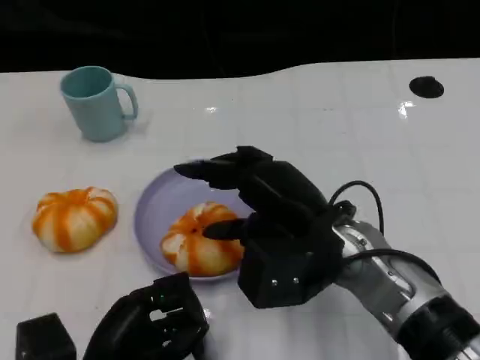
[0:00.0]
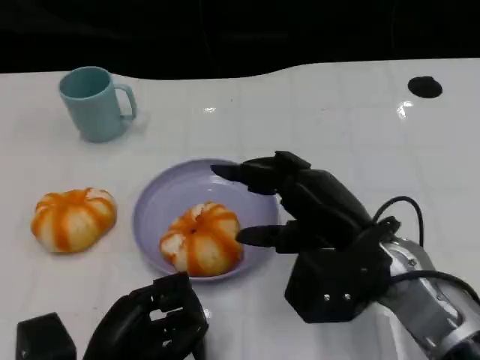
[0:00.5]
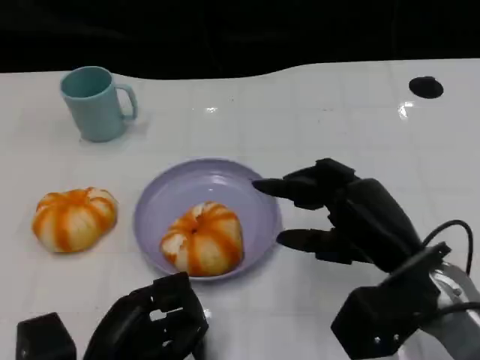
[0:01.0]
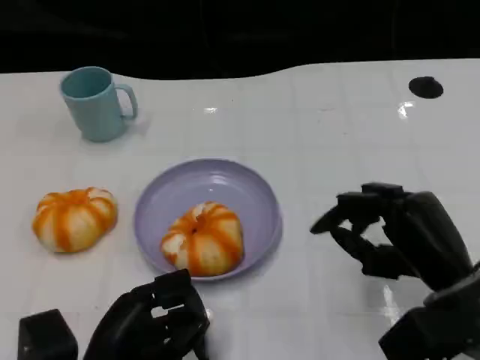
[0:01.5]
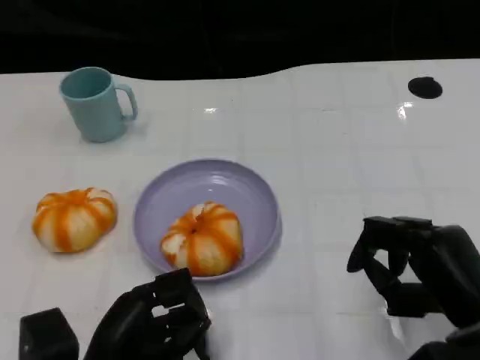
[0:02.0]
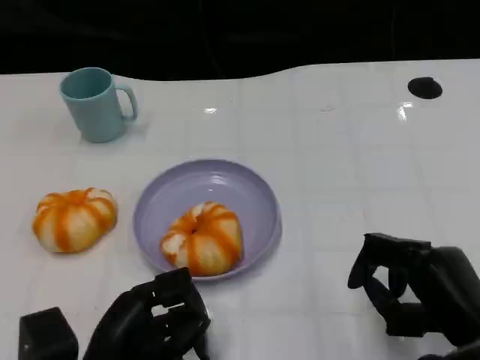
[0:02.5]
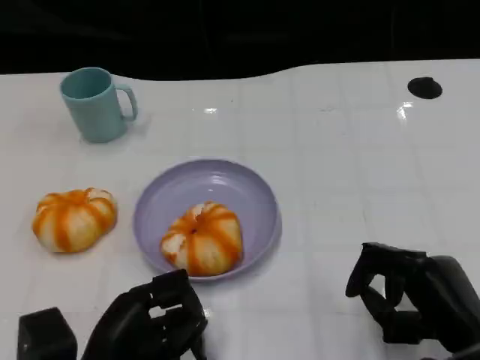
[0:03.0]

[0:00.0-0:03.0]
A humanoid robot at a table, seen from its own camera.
Task of the whole recording: Grasp the bread from the table and place it into the plate.
0:00.0 to 0:01.5: The right hand is displaced to the right by about 10 cm.
0:01.5 to 0:03.0: The right hand ends up some 5 cm from where it was.

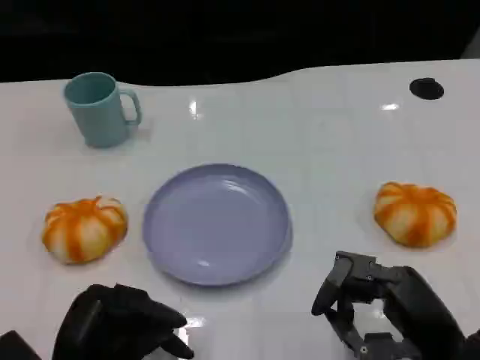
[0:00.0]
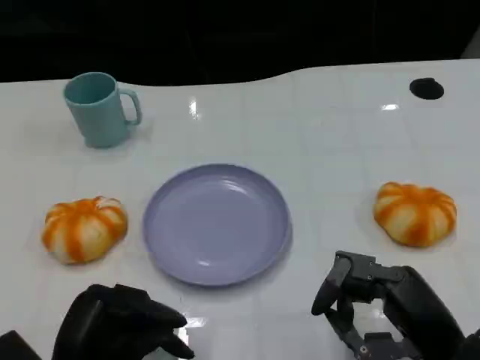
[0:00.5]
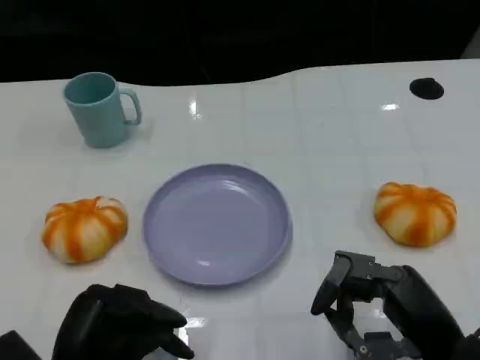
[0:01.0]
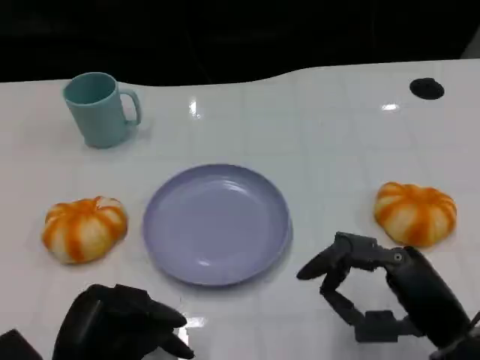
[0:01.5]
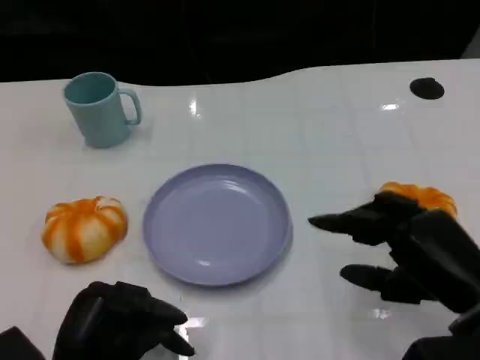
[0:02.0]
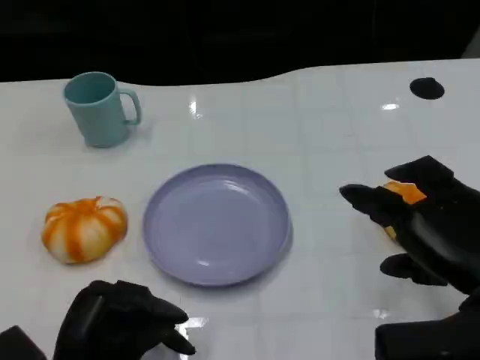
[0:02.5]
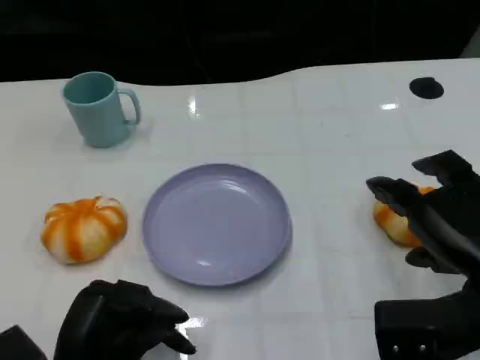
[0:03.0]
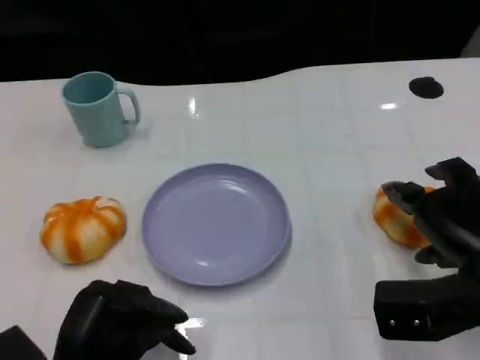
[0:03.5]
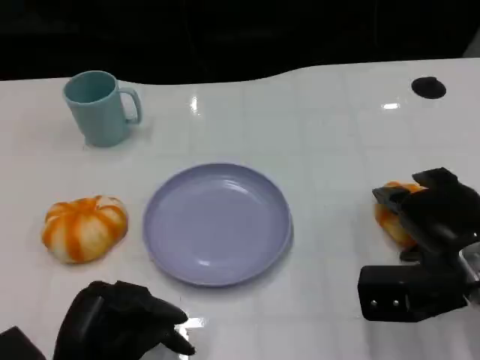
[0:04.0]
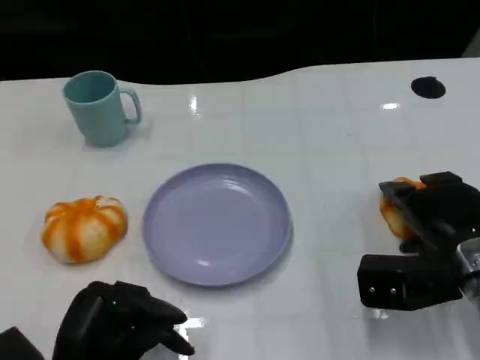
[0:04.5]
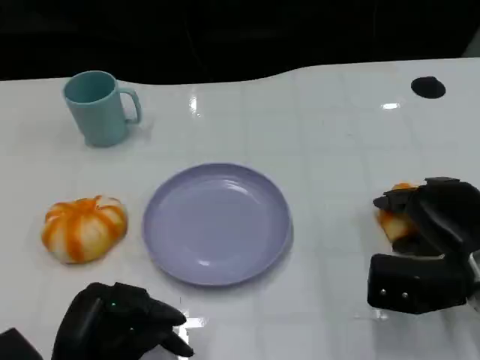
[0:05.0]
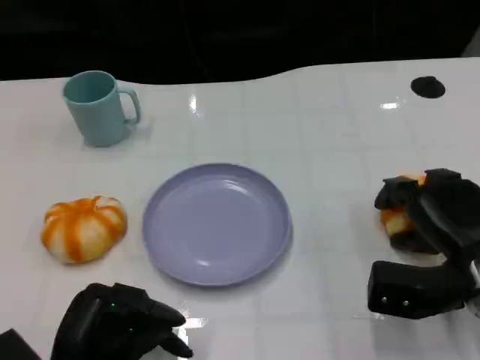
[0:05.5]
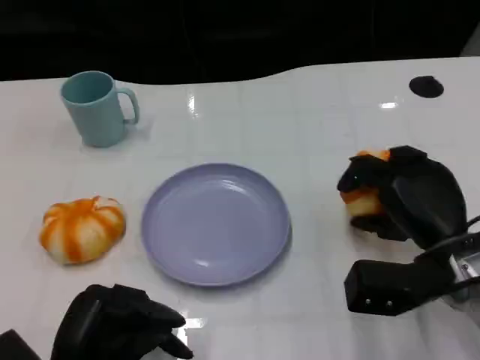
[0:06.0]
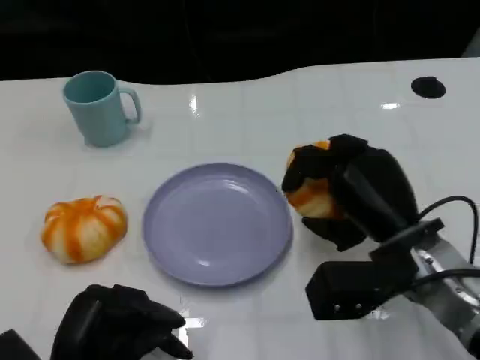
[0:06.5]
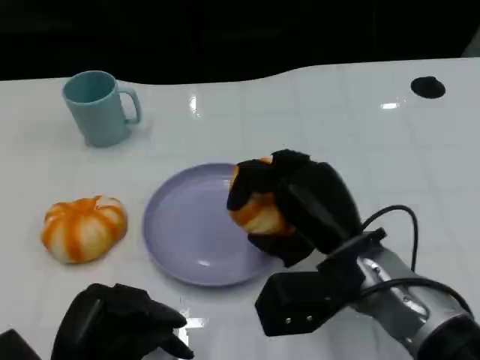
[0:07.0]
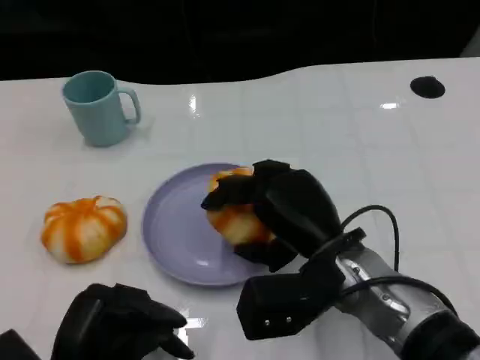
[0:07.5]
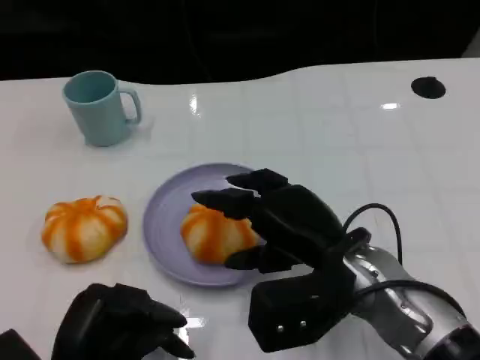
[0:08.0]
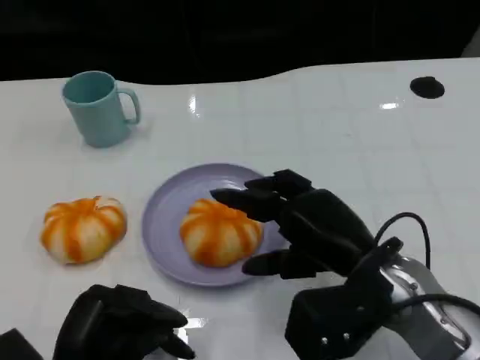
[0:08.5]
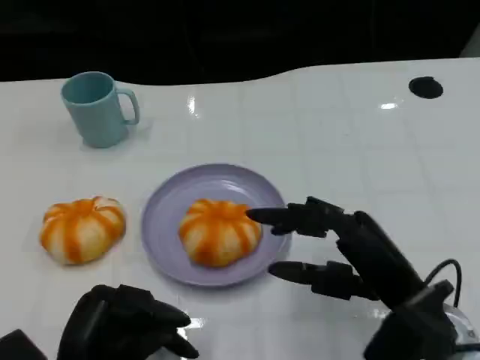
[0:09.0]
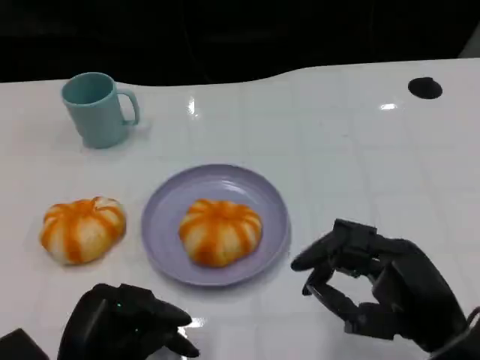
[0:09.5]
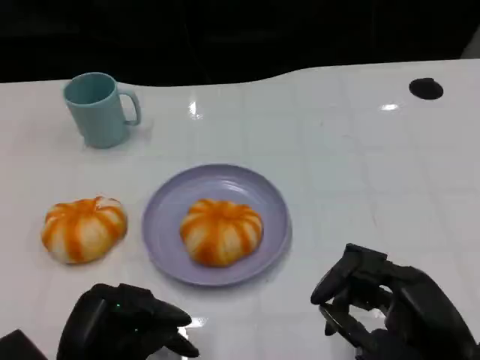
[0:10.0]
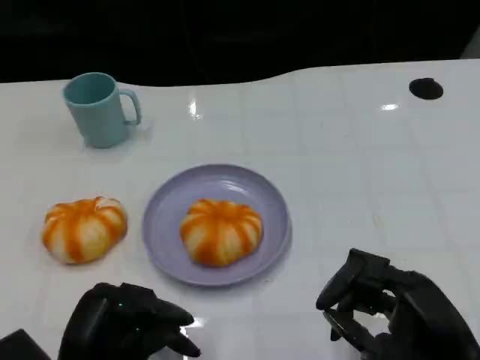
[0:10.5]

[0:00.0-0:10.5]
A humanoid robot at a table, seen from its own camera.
Task of the whole recording: Grasp the bread from the table and place it into the plate.
0:00.0 to 0:02.0: The right hand ends up some 5 cm from where it was.
0:02.0 to 0:04.0: The right hand travels forward by roughly 5 cm.
0:04.0 to 0:06.5: The right hand travels to the left by about 5 cm.
0:08.5 to 0:10.5: The right hand goes approximately 10 cm backward and to the right.

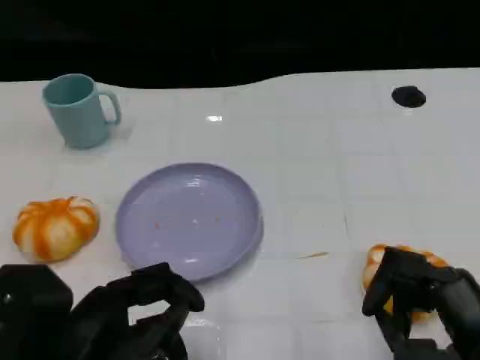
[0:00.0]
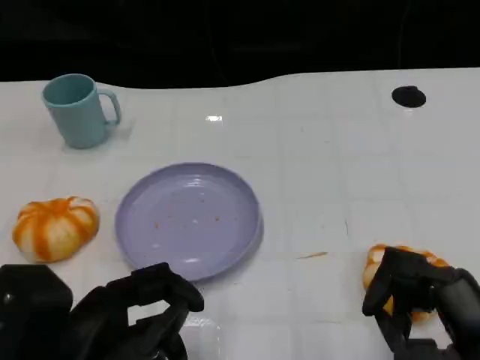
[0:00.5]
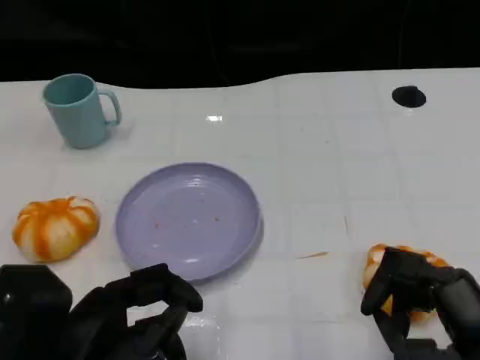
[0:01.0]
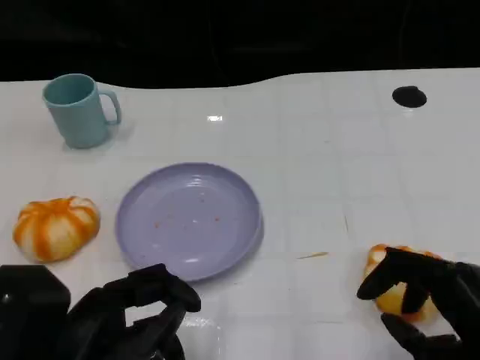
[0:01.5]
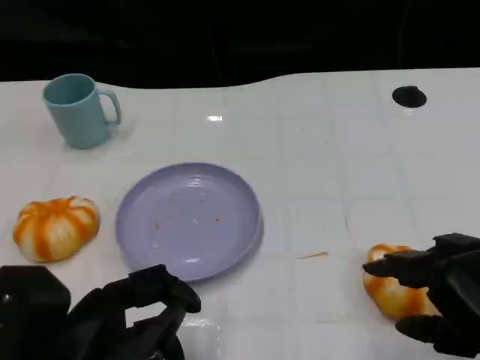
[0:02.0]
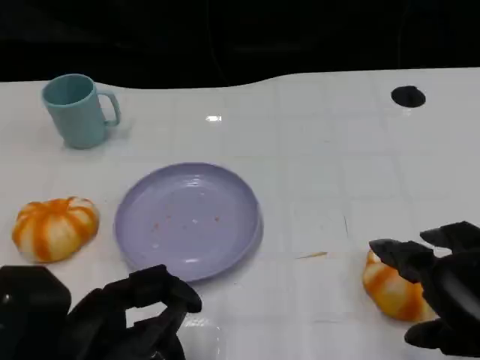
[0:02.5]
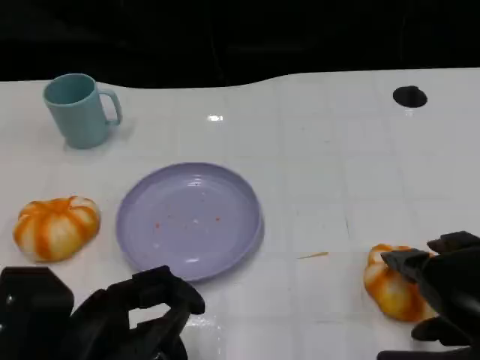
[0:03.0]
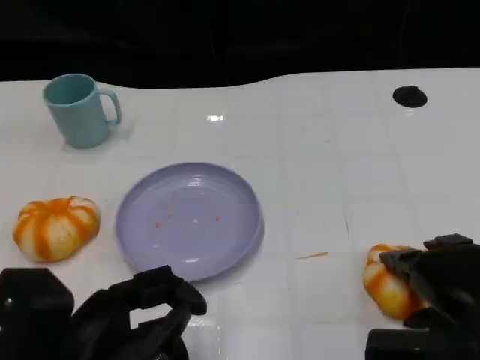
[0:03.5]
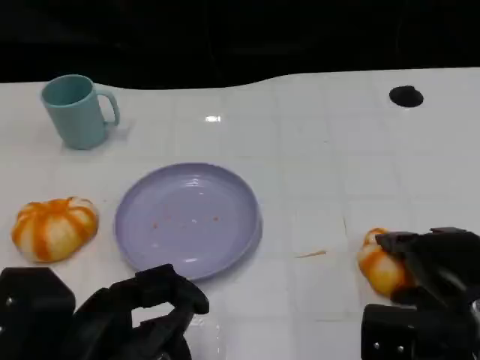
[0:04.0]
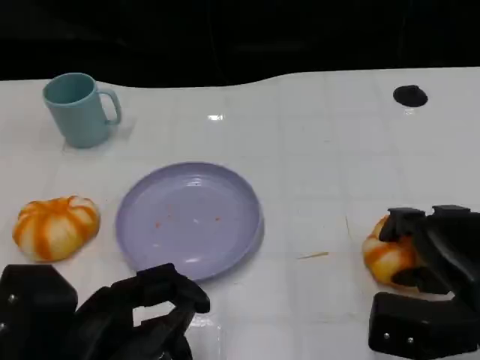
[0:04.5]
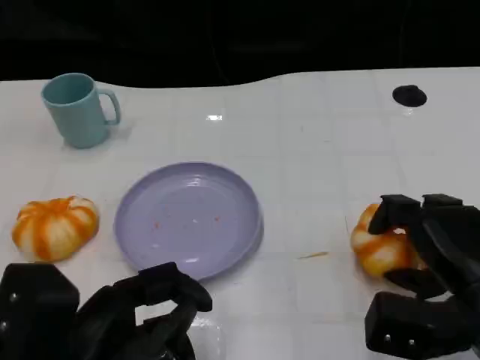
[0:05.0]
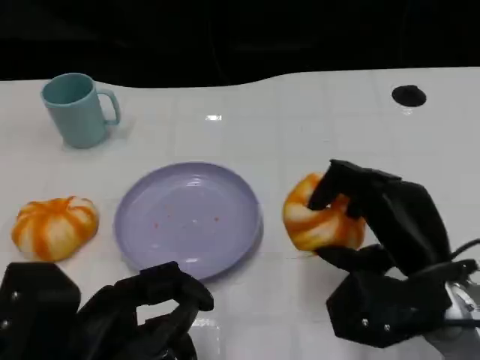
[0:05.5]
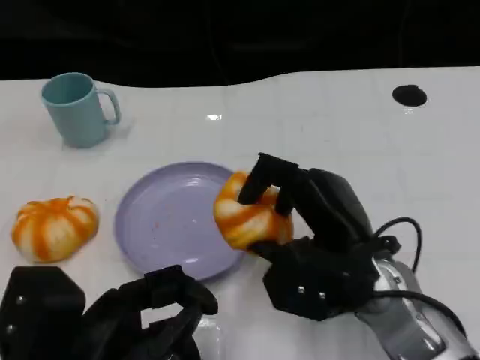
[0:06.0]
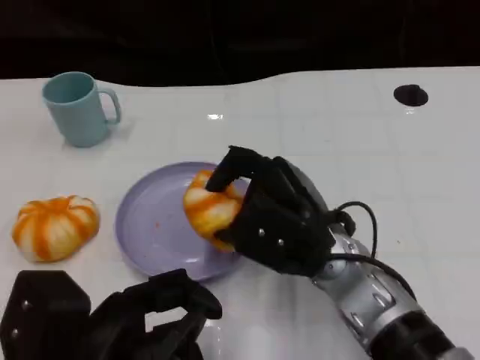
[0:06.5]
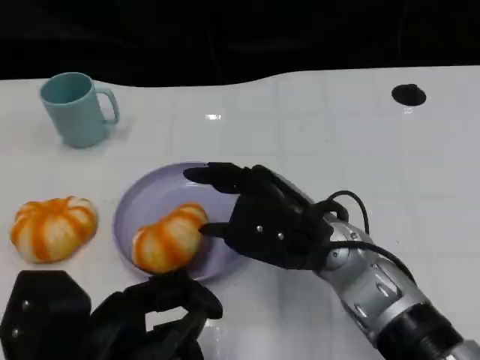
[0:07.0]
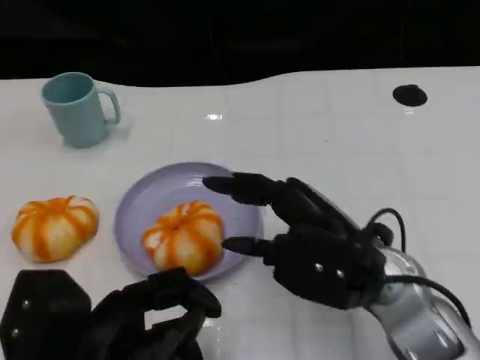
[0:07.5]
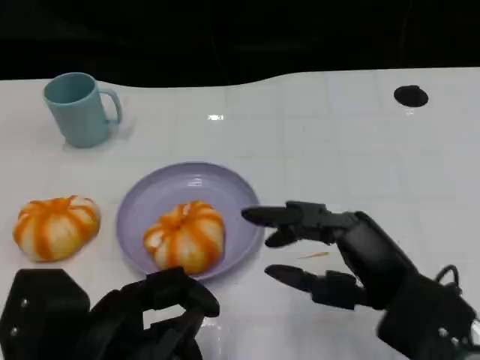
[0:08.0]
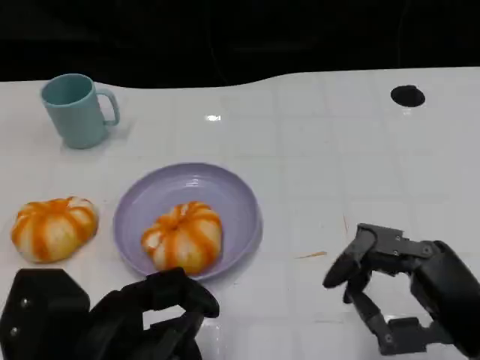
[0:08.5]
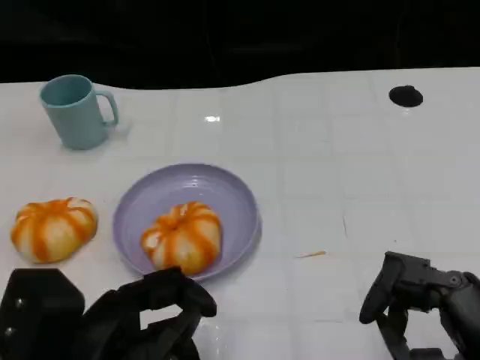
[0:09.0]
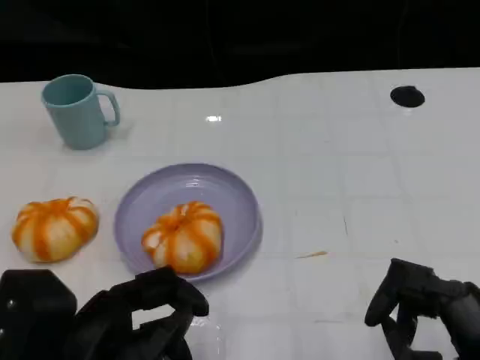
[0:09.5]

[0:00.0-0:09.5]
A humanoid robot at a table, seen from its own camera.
Task of the whole recording: Grasp the bread from the table and place it into the plate.
0:02.0 to 0:04.0: The right hand moves forward and downward, some 10 cm.
0:04.0 to 0:05.5: The right hand goes roughly 5 cm to the left.
0:07.5 to 0:09.5: The right hand moves backward and to the right, approximately 15 cm.

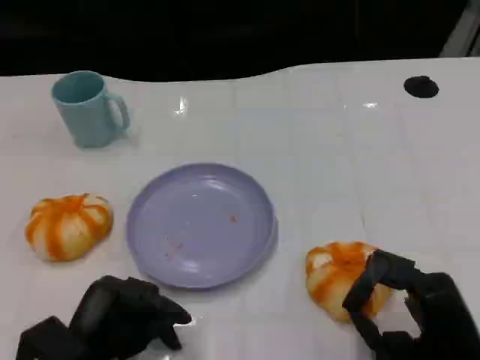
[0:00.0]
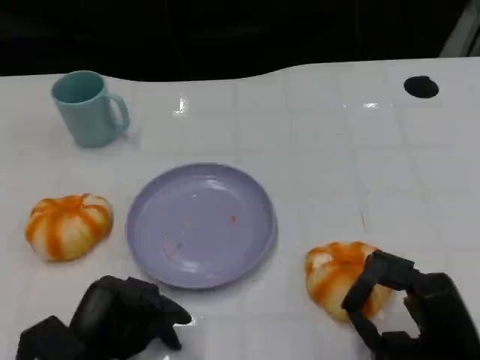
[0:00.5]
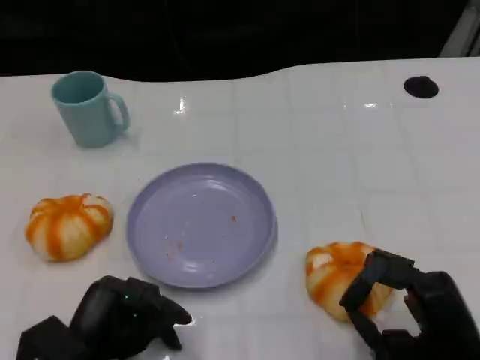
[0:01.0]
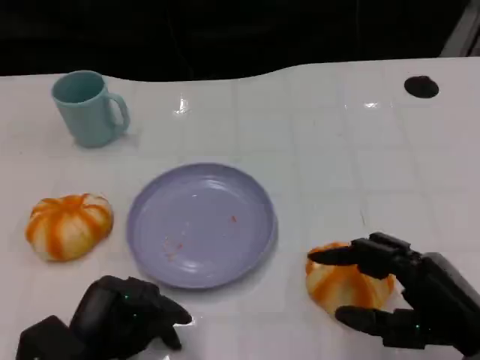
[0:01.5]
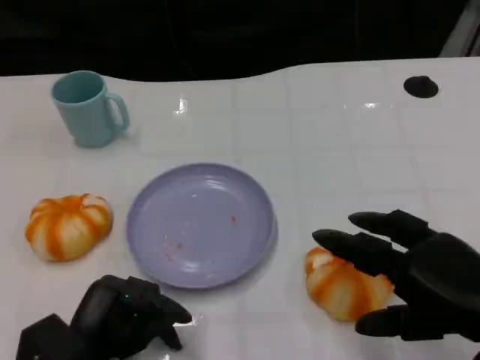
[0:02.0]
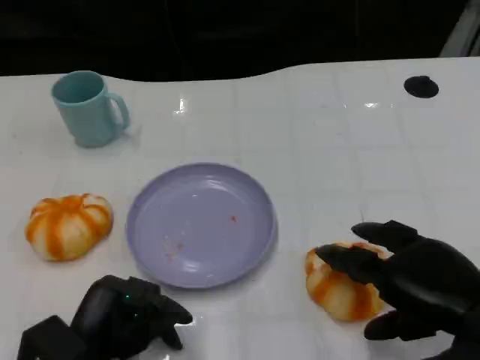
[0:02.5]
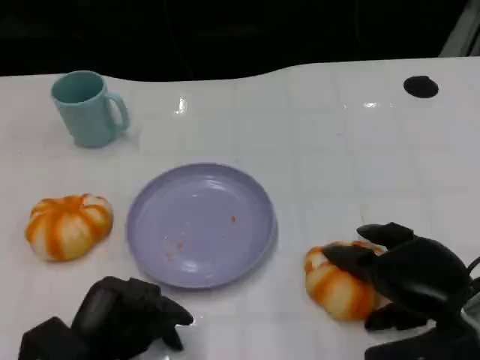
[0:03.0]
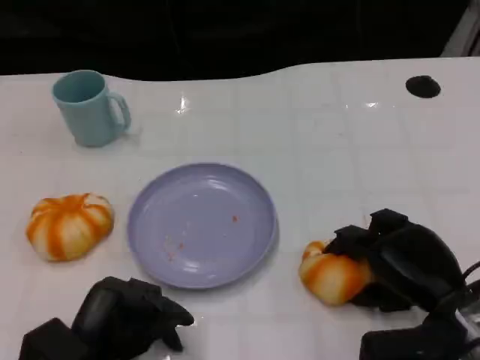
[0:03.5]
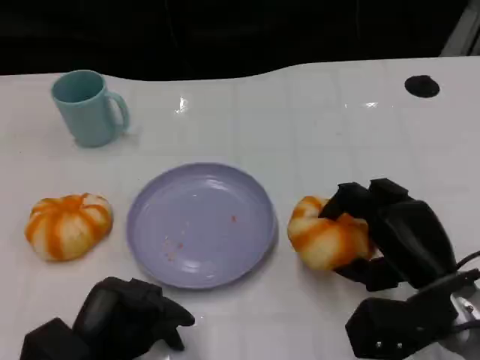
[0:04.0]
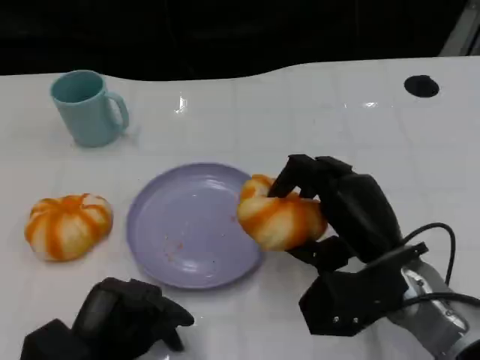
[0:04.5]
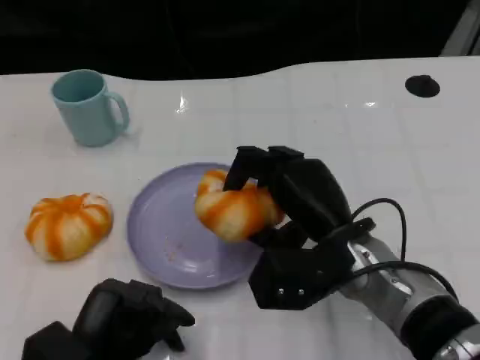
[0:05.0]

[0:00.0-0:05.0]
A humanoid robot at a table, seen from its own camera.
Task of the whole recording: Grasp the bread from the table and place it into the plate.
0:00.0 to 0:02.5: The right hand goes some 5 cm upward.
0:02.5 to 0:05.0: The right hand moves to the left and forward, some 15 cm.
